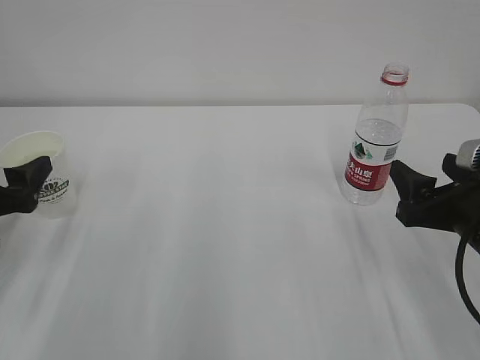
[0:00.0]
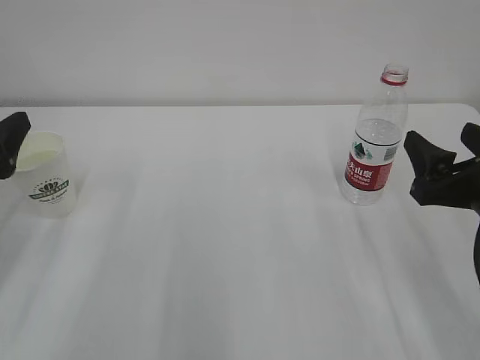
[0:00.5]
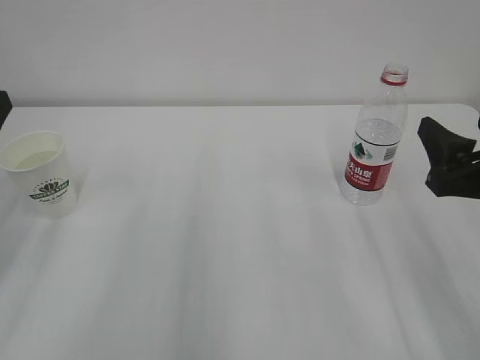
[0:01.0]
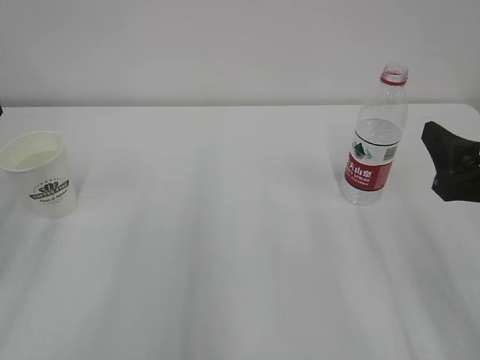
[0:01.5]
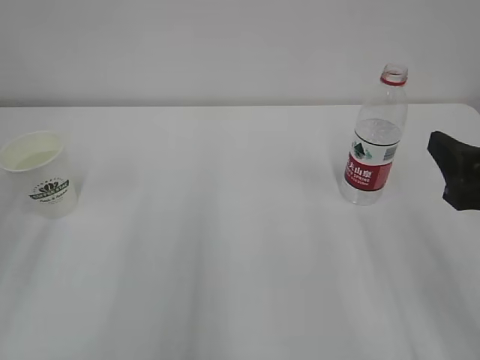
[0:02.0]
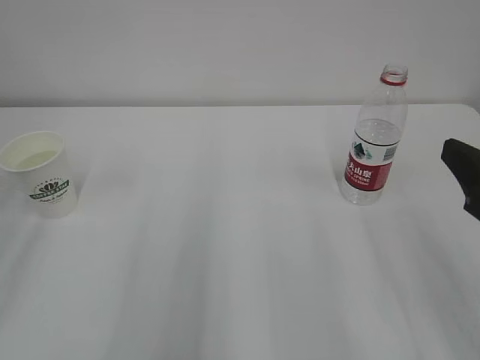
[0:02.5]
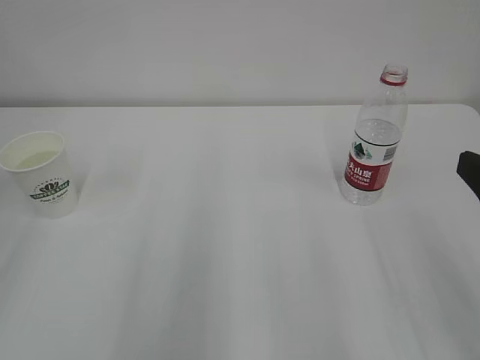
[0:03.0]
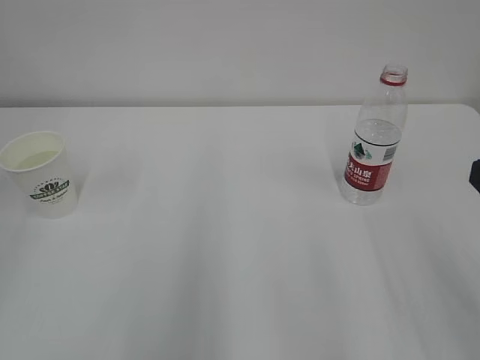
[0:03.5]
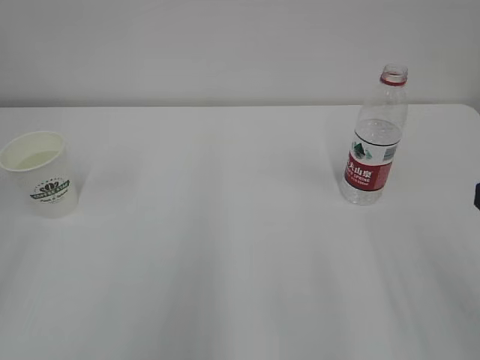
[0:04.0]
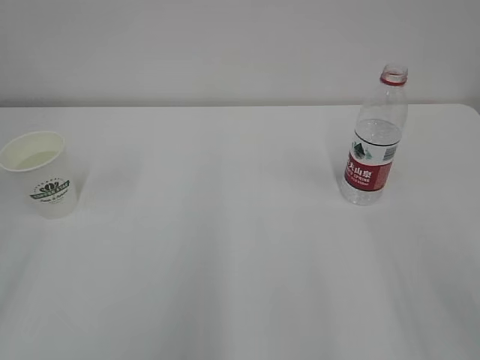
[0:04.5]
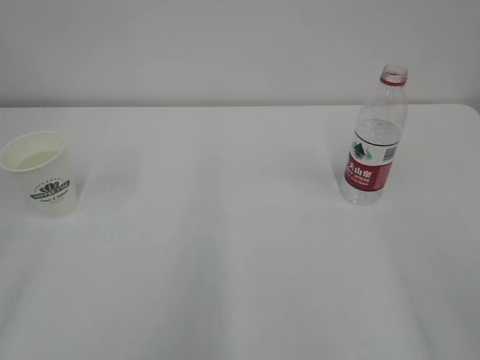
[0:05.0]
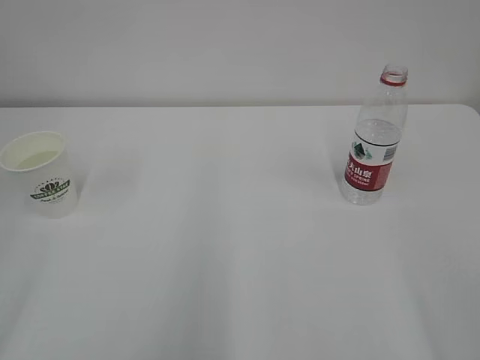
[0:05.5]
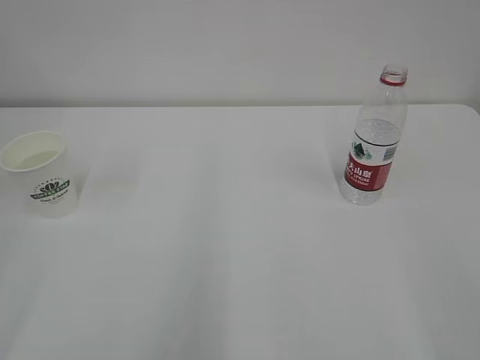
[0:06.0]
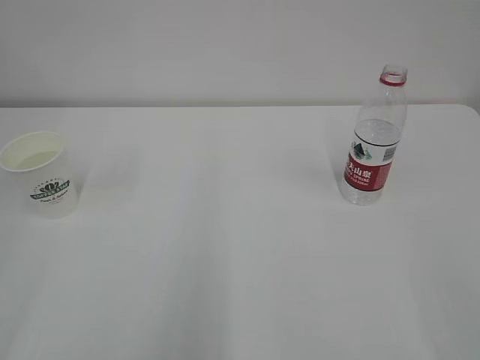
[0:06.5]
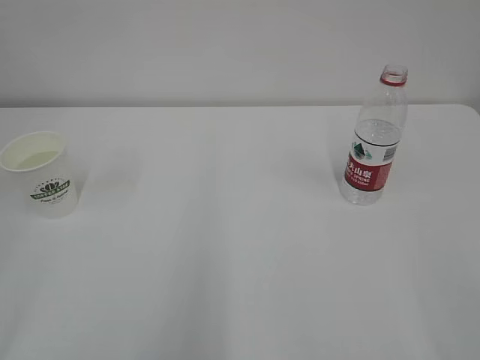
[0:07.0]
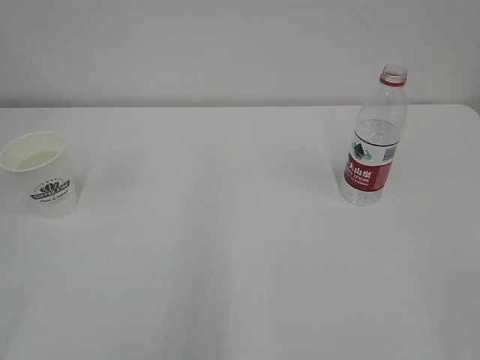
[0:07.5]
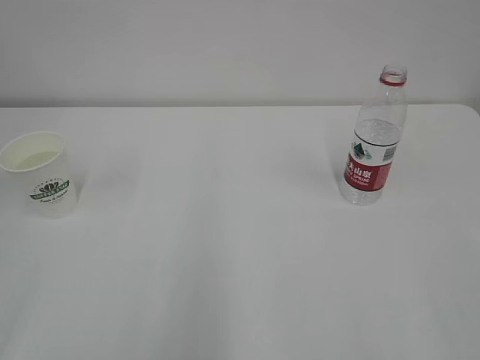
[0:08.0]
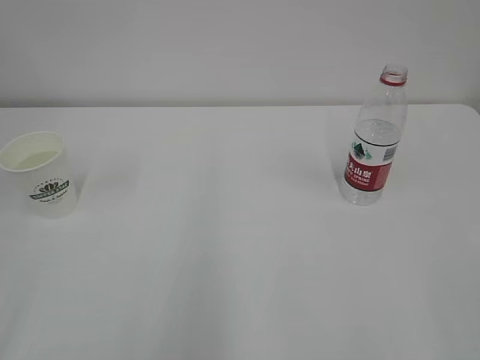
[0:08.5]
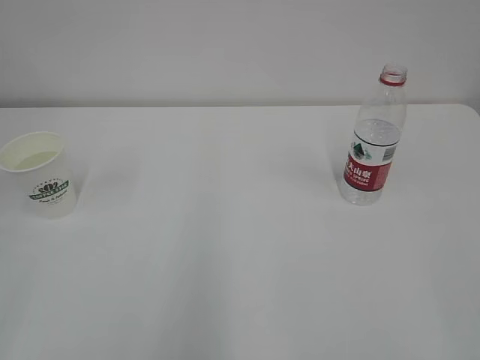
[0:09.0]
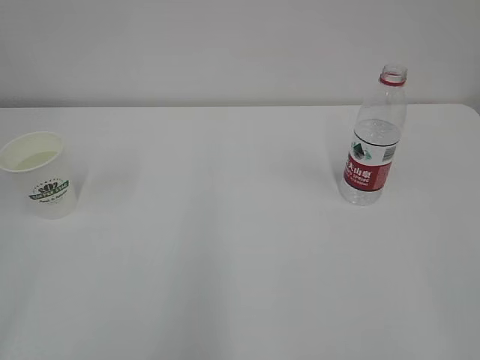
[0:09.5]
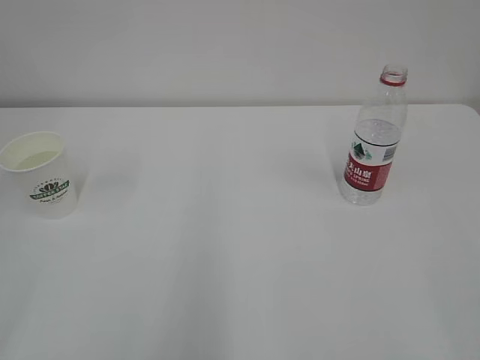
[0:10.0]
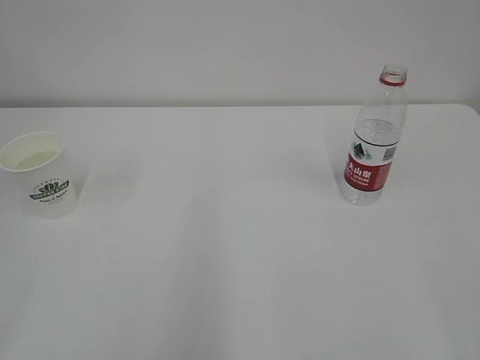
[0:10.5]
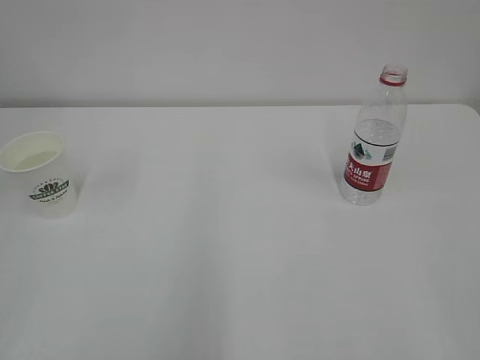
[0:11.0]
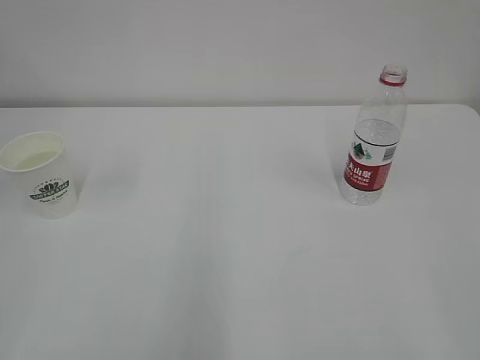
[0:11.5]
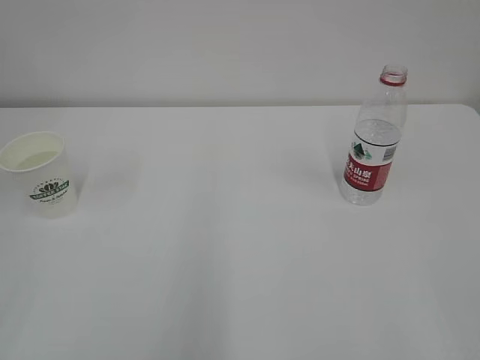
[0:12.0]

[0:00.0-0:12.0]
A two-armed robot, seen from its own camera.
0:00.0 to 0:02.0: The left gripper travels upward and backward by about 10 cm, and closes its fingers. The right gripper moves upward, some 5 cm.
0:02.0 to 0:04.0: The right gripper heads backward, covering about 5 cm.

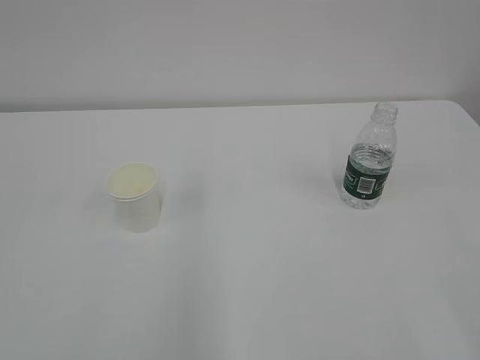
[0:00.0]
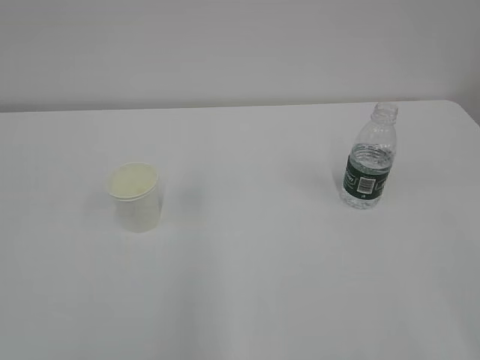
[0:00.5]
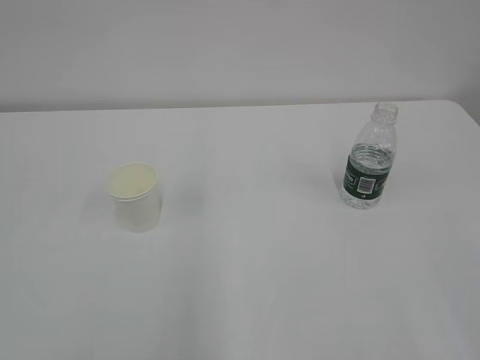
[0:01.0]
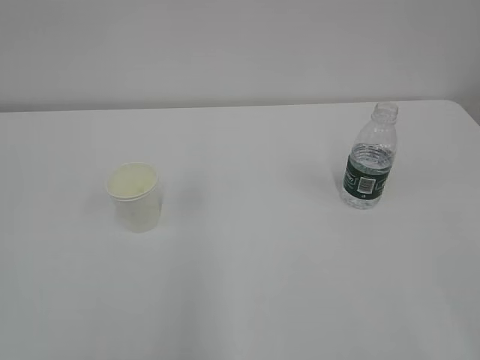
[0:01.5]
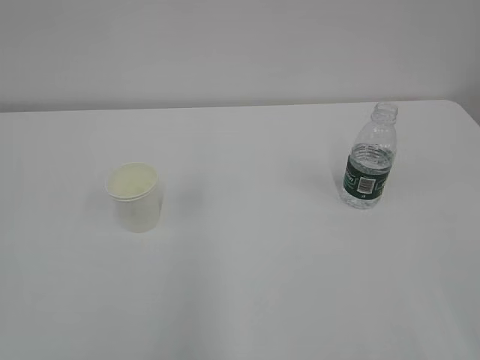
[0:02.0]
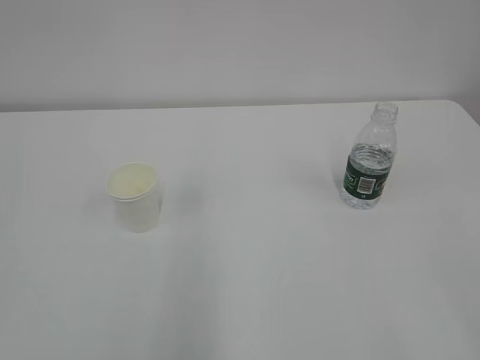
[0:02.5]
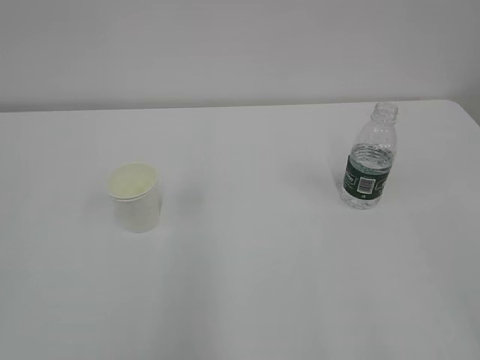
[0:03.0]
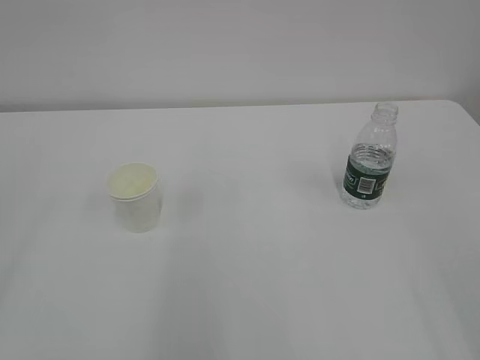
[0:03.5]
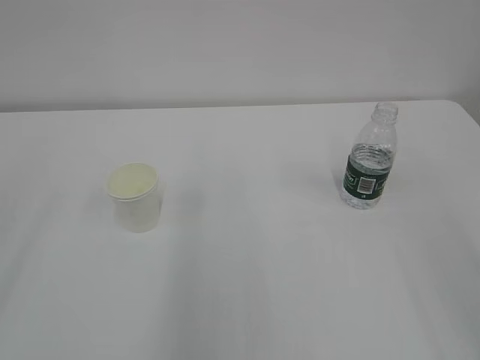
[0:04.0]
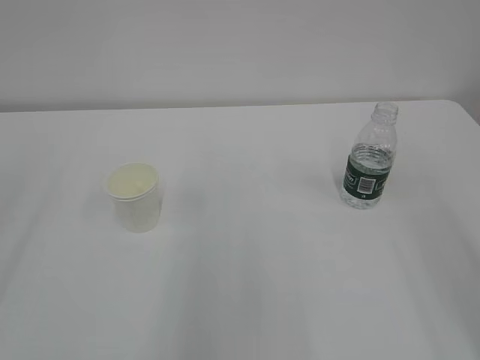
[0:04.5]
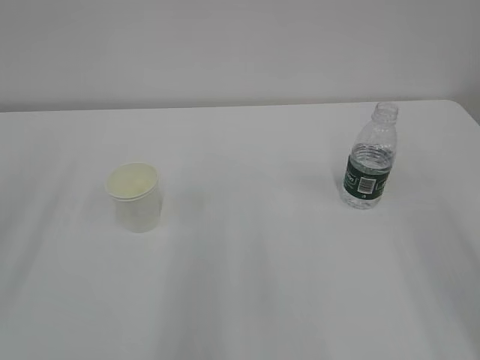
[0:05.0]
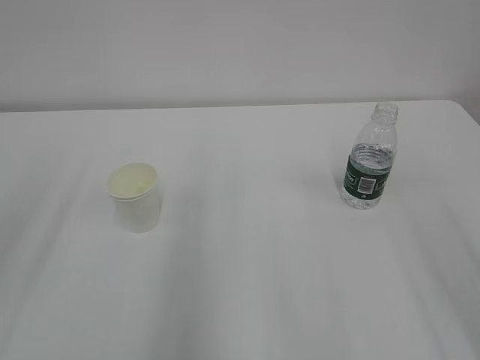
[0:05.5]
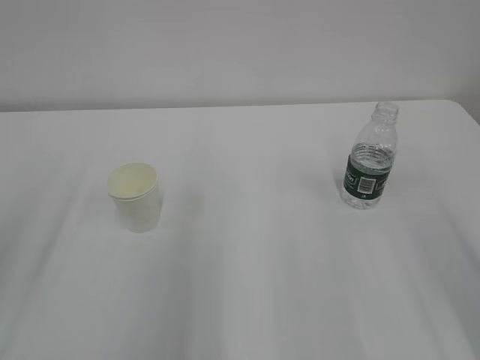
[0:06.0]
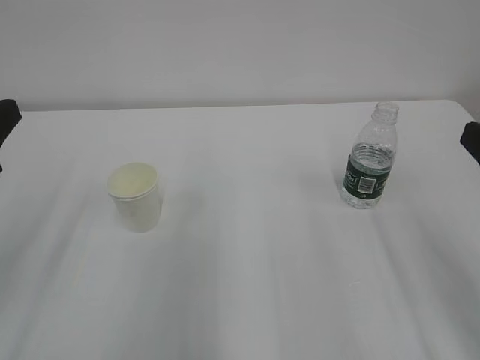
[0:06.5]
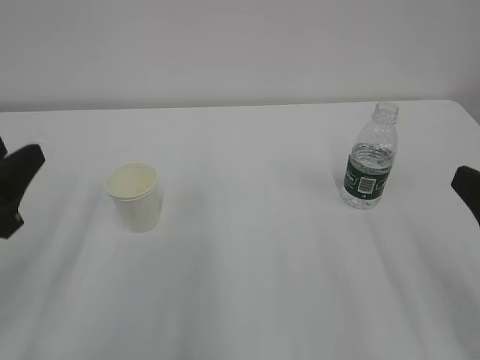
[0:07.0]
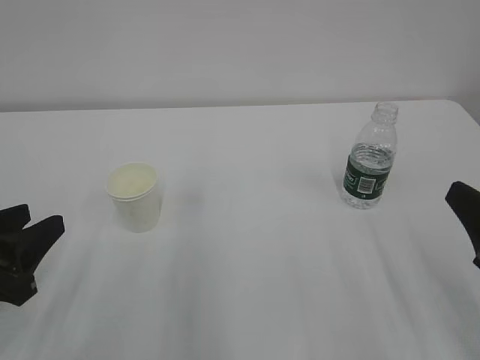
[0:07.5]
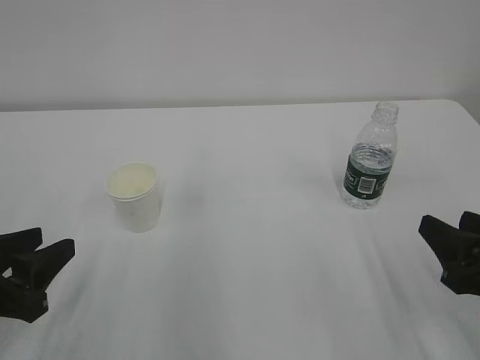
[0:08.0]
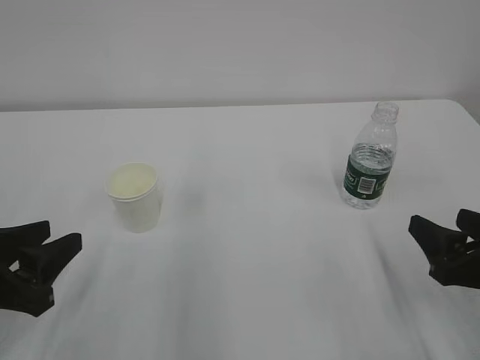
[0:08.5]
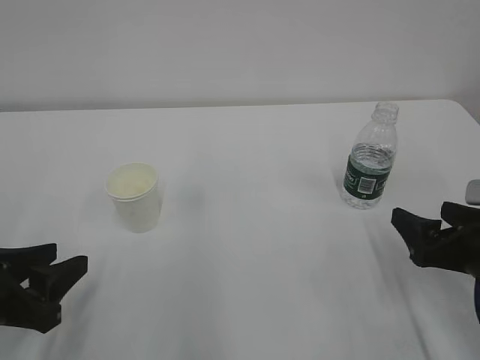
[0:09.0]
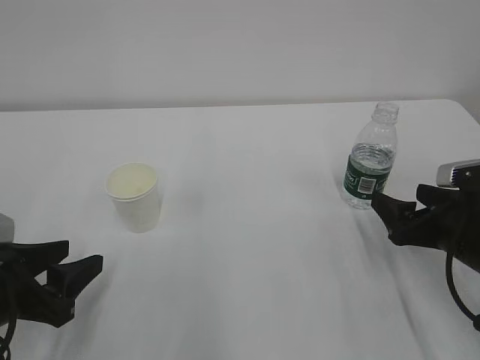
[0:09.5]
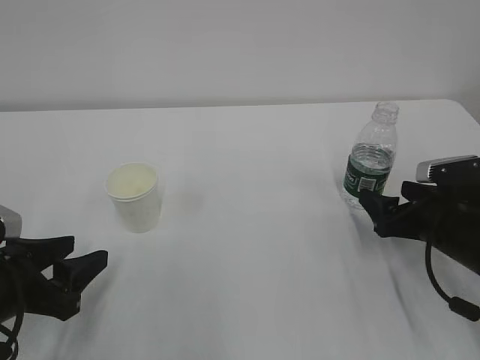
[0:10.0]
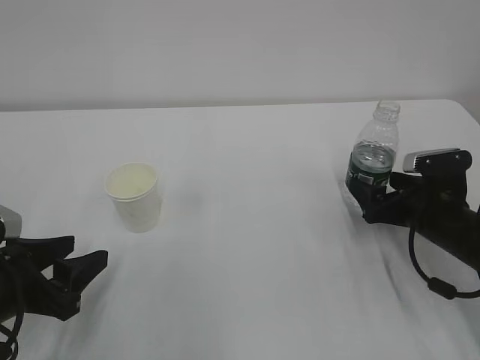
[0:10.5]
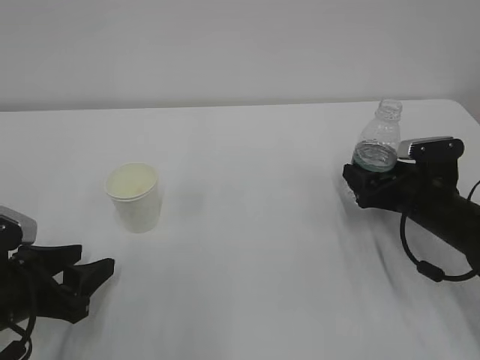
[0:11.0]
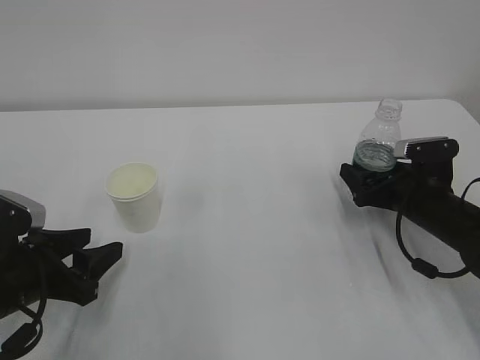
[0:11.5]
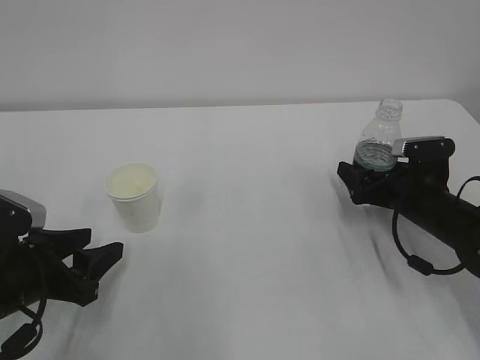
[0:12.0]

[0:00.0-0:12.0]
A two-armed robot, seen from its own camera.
0:06.0 to 0:08.0: Both grippers move downward, roughly 15 cm.
0:08.0 to 0:10.0: The right gripper travels forward and downward by about 15 cm, and opens its fingers.
0:10.0 to 0:12.0: The right gripper heads forward, covering about 5 cm.

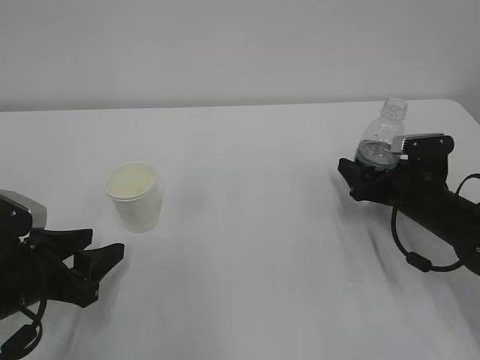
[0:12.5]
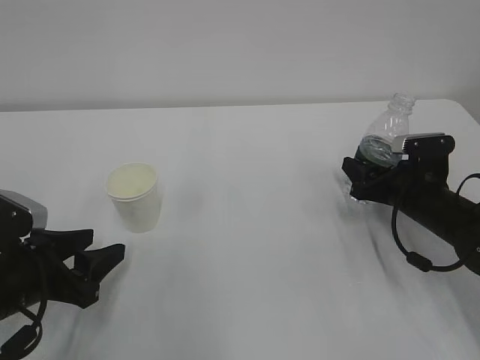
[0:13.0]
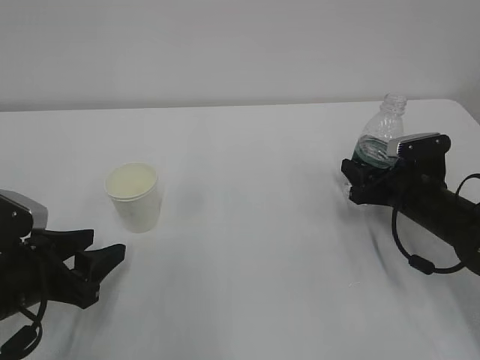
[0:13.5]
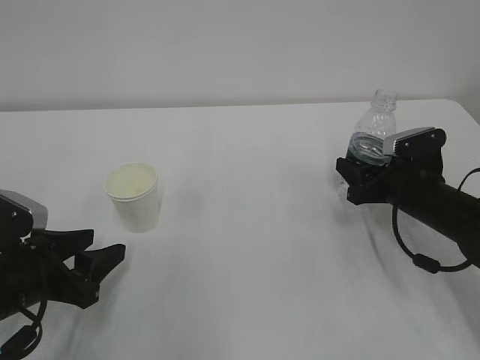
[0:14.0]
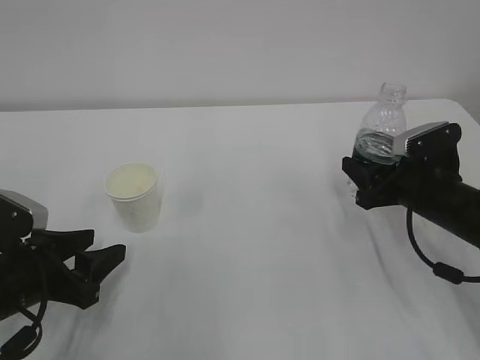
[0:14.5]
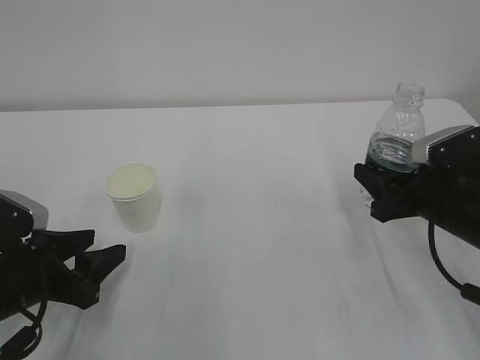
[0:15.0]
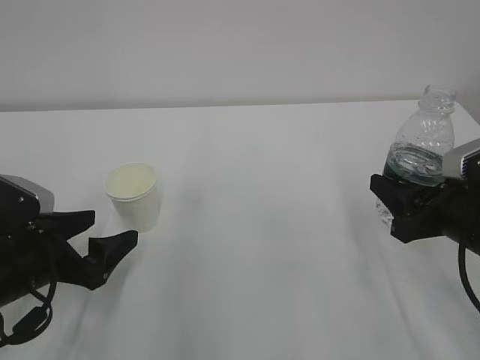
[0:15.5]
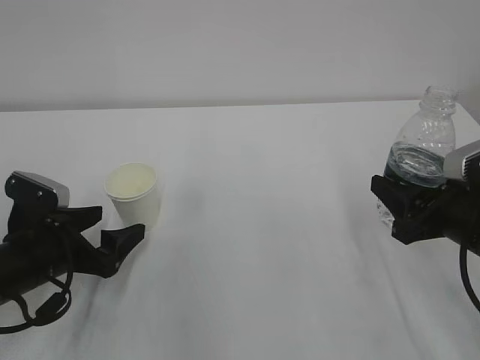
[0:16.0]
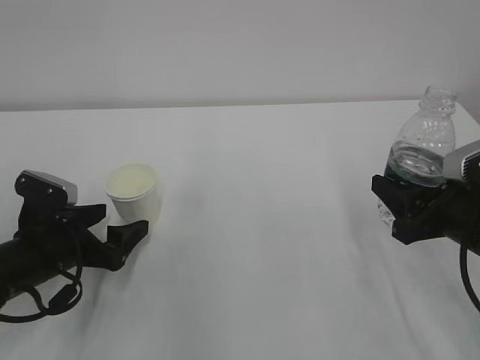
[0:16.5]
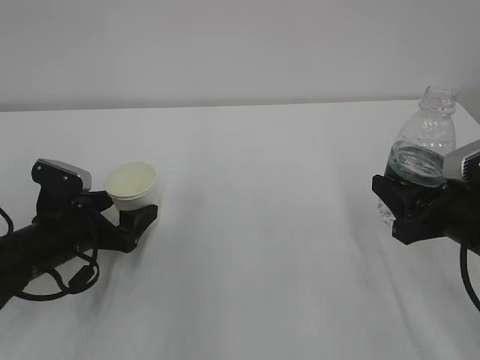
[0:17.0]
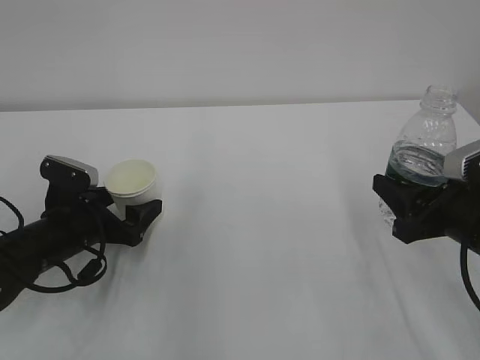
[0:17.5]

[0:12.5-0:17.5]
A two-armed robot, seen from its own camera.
0:12.5 to 0:15.0: The right gripper moves backward and upward, roughly 10 cm, and closes its fingers.
0:15.0 to 0:17.5: The right gripper changes place by approximately 5 cm. Meanwhile the left gripper moves forward, about 10 cm, and opens its fingers.
